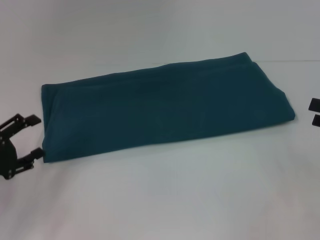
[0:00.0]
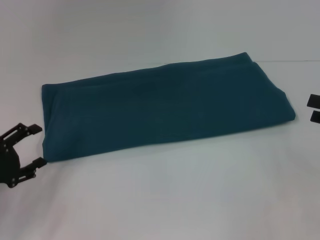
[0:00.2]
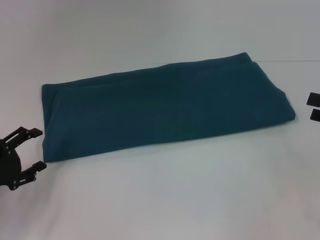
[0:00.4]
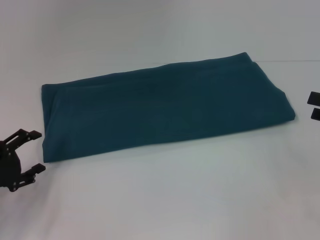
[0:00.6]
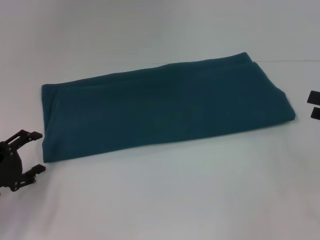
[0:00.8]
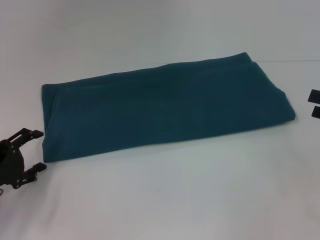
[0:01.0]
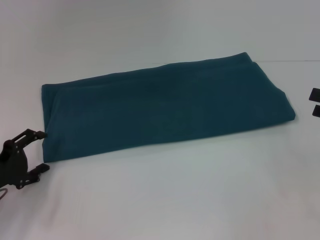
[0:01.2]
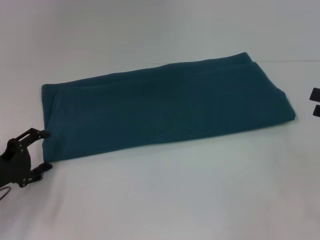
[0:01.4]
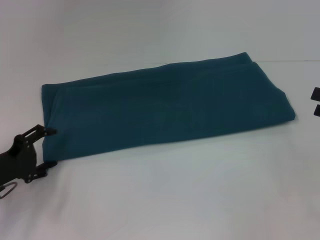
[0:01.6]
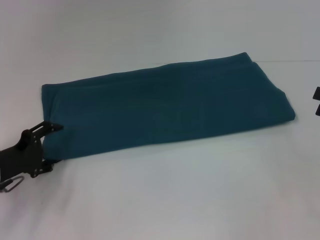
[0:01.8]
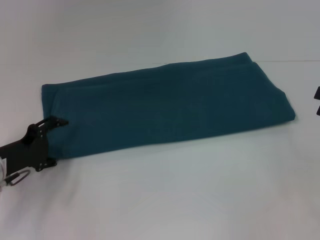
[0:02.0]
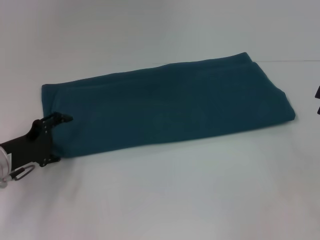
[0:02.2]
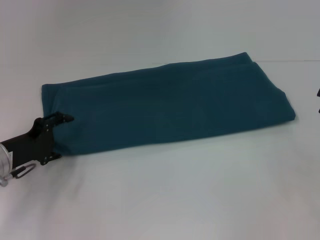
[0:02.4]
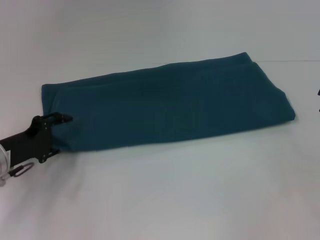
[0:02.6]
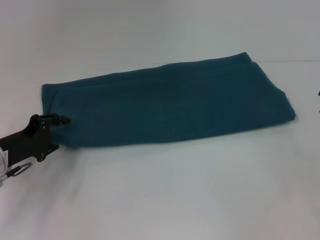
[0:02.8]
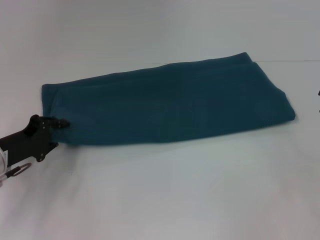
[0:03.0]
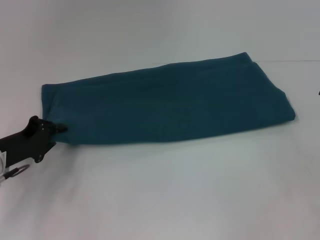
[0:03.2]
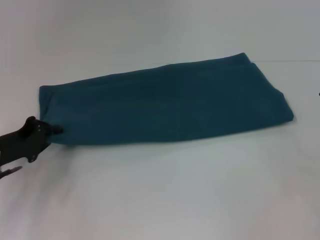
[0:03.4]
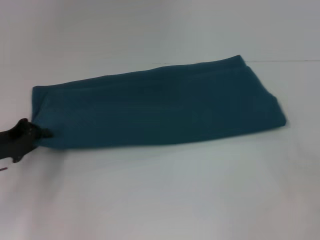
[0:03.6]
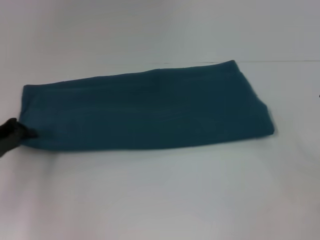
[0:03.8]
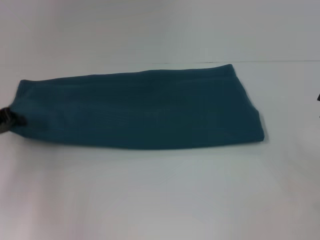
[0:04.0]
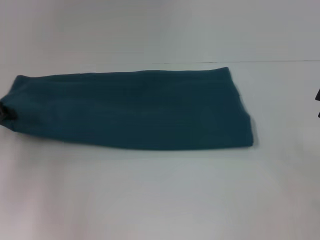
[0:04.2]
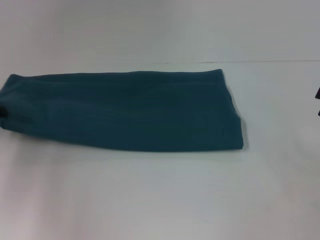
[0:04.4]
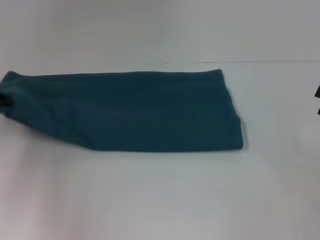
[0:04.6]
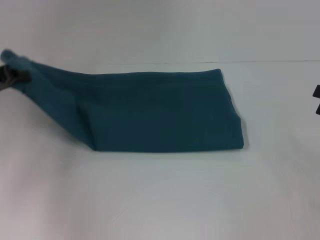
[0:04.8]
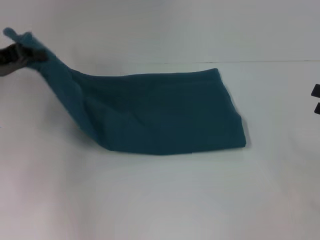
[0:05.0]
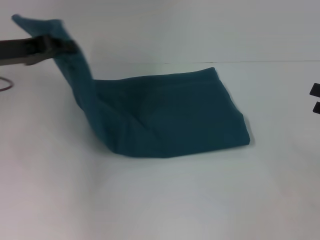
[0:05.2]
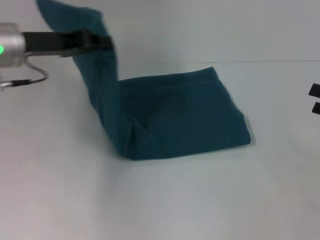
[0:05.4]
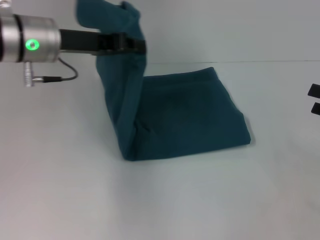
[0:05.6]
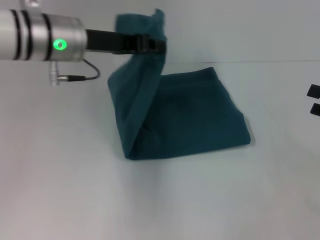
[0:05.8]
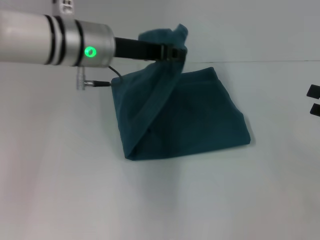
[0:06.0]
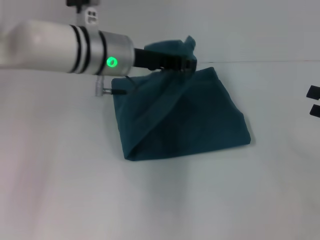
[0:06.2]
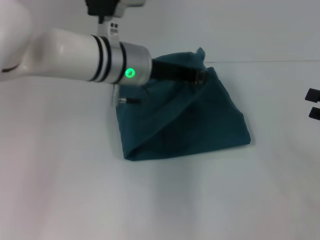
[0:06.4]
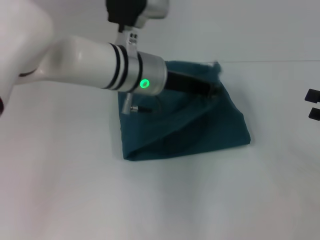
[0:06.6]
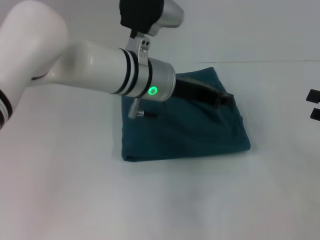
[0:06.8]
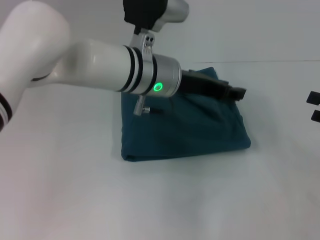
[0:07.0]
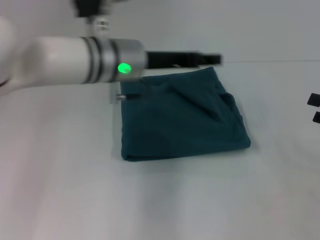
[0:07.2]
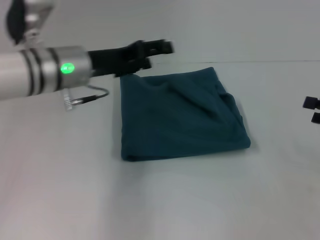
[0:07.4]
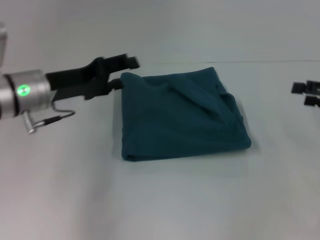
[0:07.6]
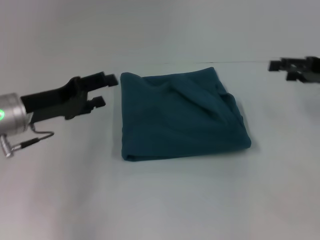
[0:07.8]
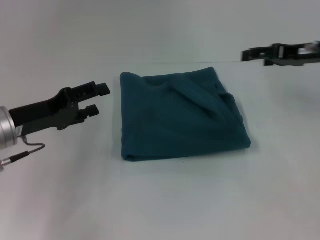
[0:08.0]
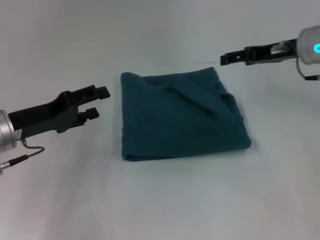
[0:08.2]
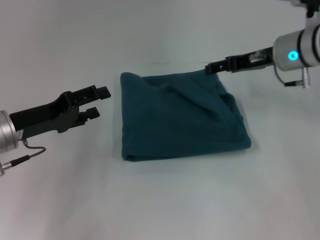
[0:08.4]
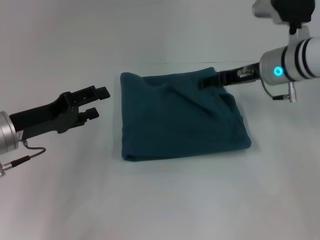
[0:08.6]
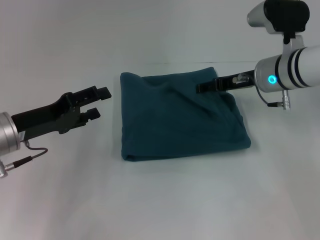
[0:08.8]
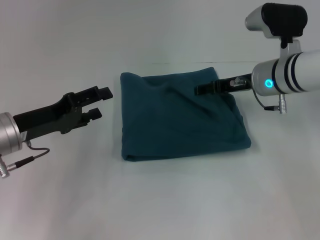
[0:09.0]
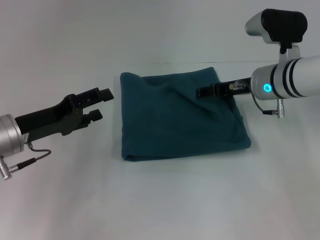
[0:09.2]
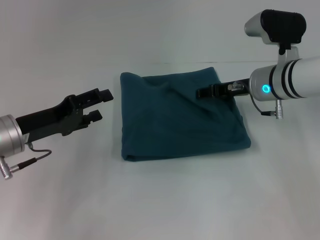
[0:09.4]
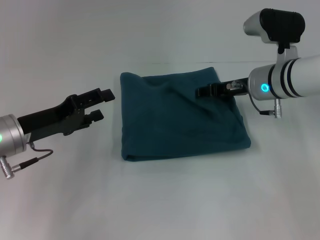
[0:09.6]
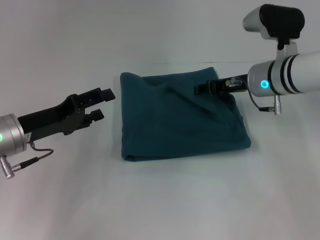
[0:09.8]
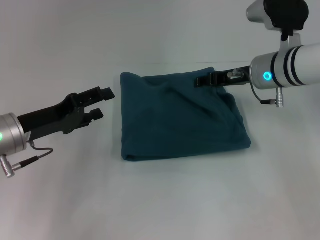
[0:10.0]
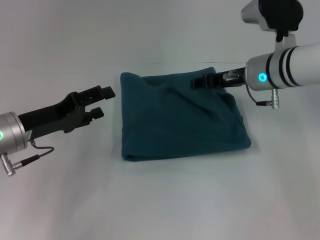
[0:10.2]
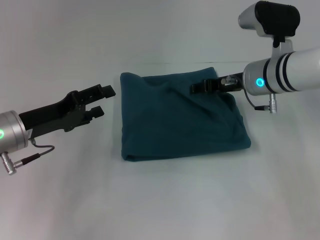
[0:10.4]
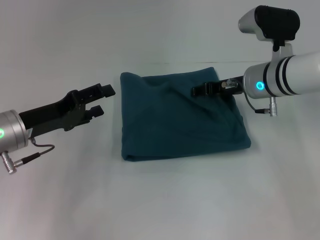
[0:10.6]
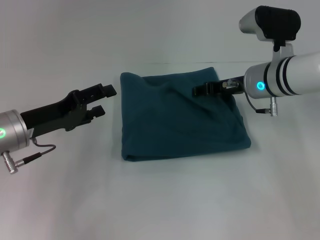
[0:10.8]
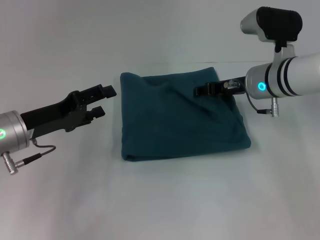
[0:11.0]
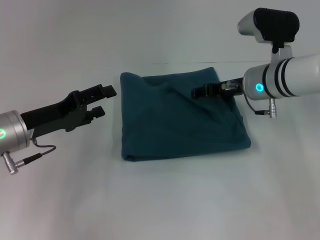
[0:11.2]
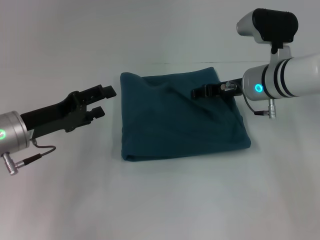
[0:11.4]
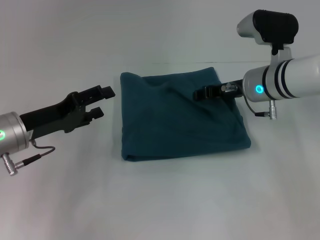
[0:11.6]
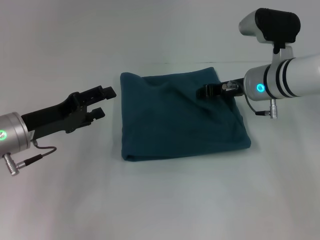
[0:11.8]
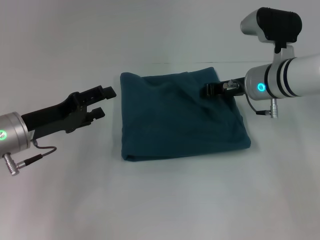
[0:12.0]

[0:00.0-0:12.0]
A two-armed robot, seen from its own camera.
Step, 0.0 to 6.8 s: Fold the clothes to the left.
0.0 to 1.6 s: The left gripper shifts by roughly 5 cm.
1.6 to 3.0 s: The left gripper closes up.
3.0 to 4.4 s: The left gripper goes roughly 10 cm to the left and upward, and closes.
4.4 to 6.0 s: The left gripper moves to the right, about 25 cm.
6.0 to 7.6 s: The left gripper moves to the left and downward, about 10 cm, and opens its fingers; the right gripper moves some 5 cm.
7.6 to 9.0 s: The right gripper moves to the left and forward, roughly 20 cm. Meanwhile the left gripper shifts about 5 cm backward.
9.0 to 10.4 s: The right gripper closes its fingers.
10.4 to 12.0 s: The right gripper closes up.

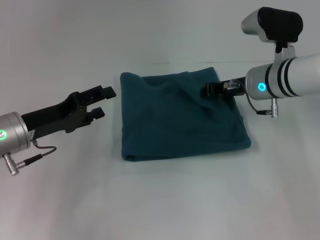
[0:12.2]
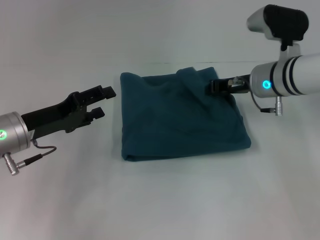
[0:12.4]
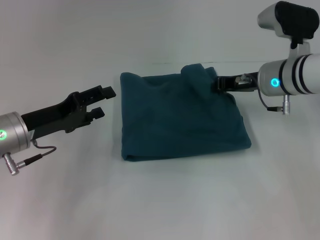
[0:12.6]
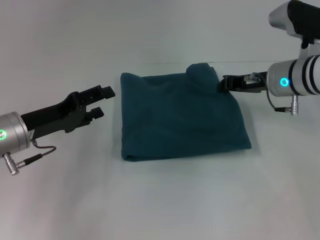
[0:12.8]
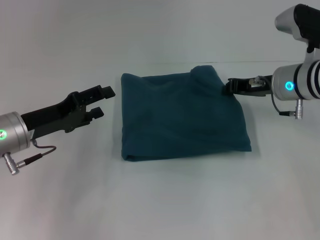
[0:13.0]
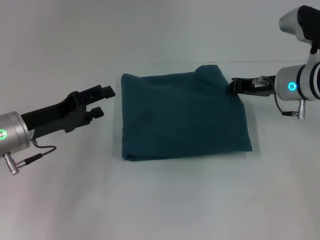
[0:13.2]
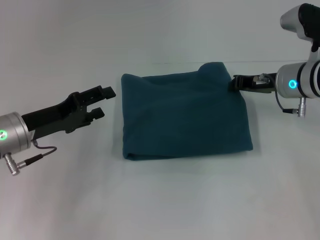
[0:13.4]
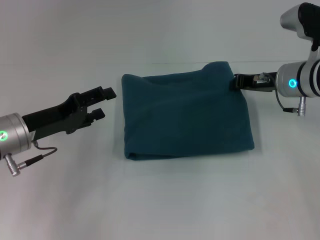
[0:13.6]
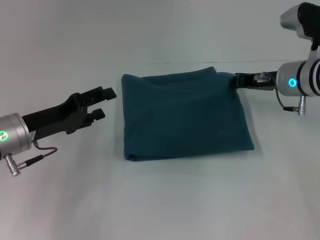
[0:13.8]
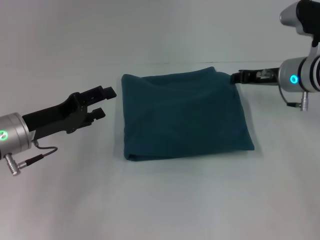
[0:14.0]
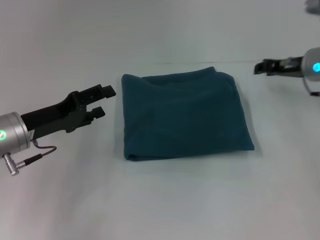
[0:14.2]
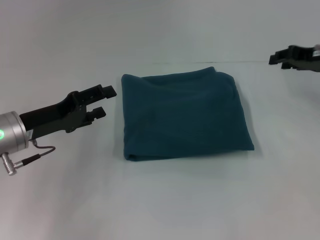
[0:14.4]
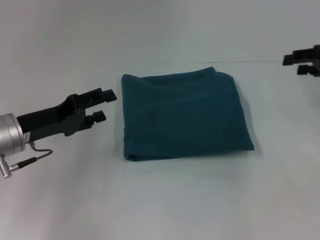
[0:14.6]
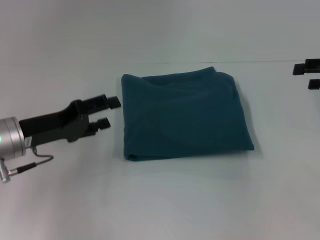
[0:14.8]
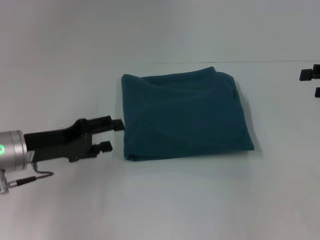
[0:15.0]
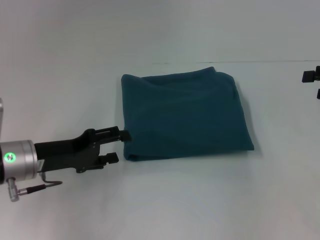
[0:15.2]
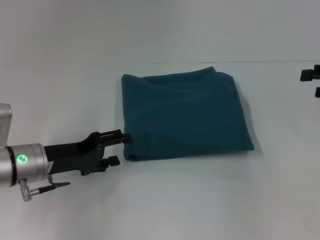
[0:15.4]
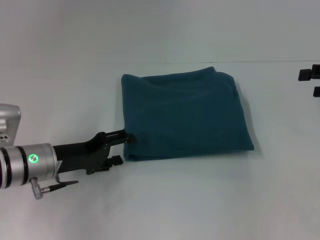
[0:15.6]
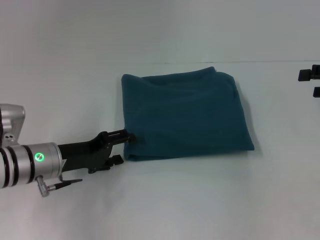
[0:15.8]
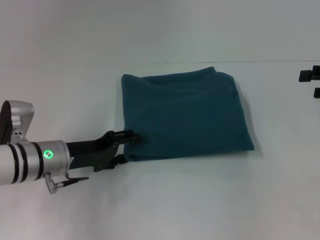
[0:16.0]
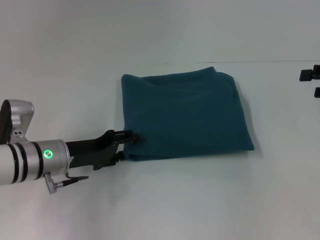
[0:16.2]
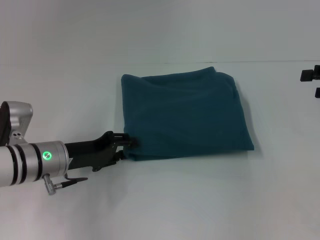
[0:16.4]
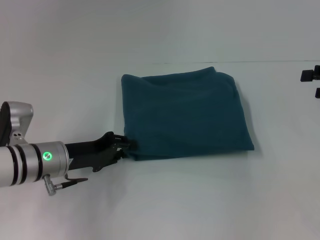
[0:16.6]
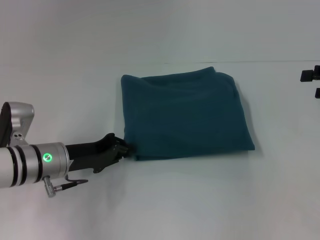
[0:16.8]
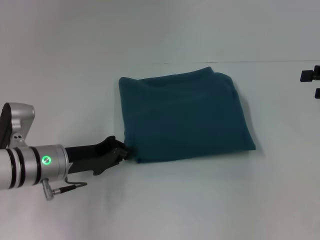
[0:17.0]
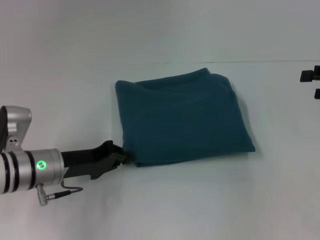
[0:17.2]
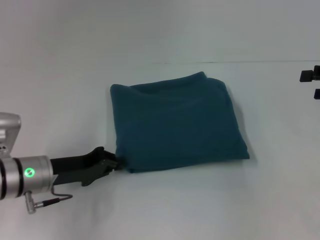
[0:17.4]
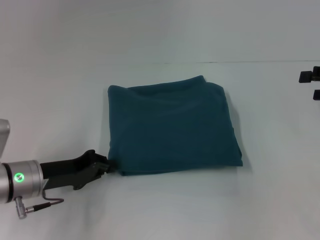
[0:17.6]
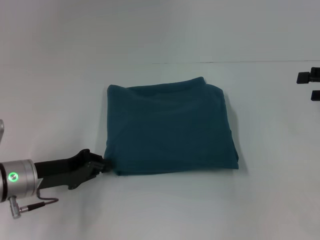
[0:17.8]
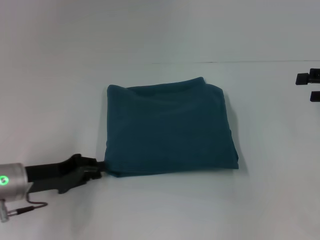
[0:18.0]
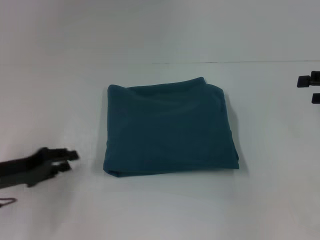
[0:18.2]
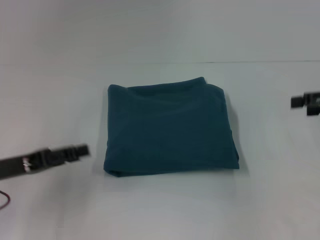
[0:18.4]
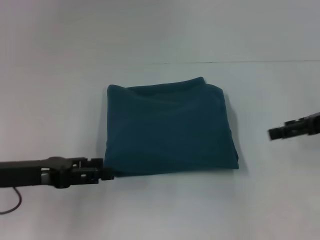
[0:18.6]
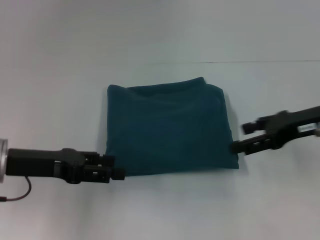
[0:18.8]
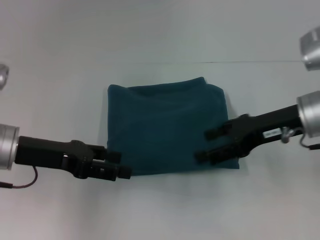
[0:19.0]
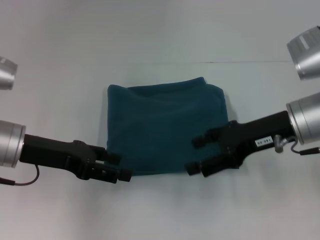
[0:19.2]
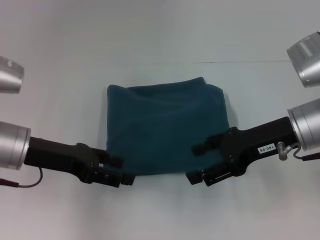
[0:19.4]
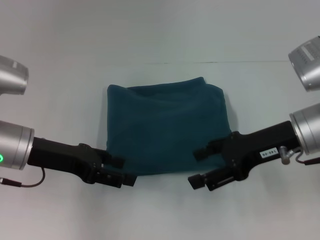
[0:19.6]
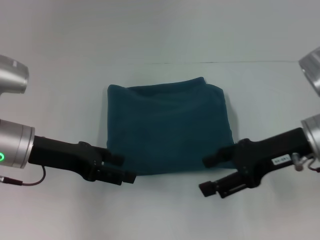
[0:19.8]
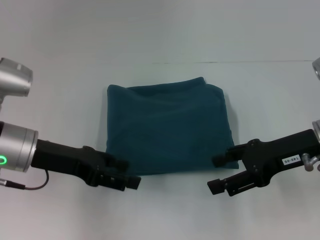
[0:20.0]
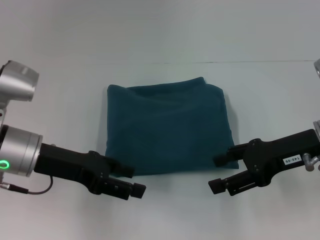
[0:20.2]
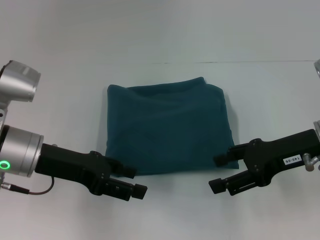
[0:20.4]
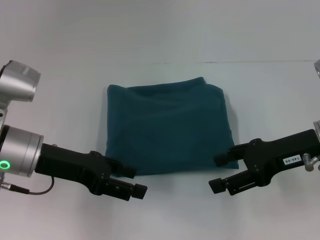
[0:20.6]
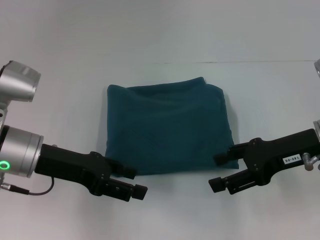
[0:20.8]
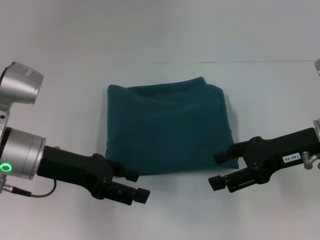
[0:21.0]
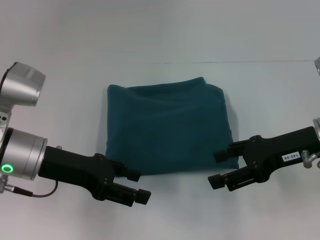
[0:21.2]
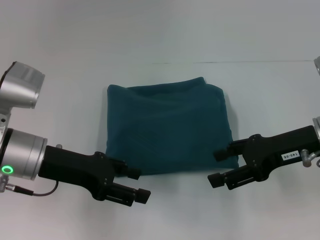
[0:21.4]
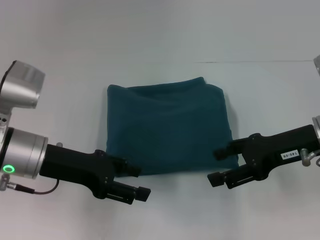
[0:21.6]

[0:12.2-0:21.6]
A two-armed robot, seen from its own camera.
12.2 to 13.8 s: There are only small adjustments of the grippers.
13.8 to 15.4 s: The right gripper heads to the right, covering some 15 cm, and opens its fingers.
15.4 to 17.0 s: The left gripper closes its fingers.
17.0 to 18.4 s: The left gripper travels to the left and backward by approximately 10 cm.
18.4 to 20.0 s: The left gripper is displaced to the right and forward by about 10 cm, and opens. The right gripper moves to the left, roughly 15 cm.
20.0 to 21.6 s: The grippers make only small movements.

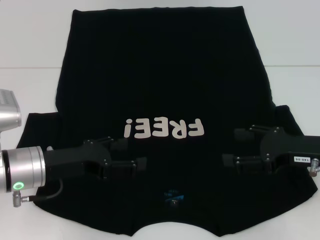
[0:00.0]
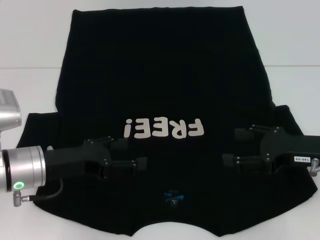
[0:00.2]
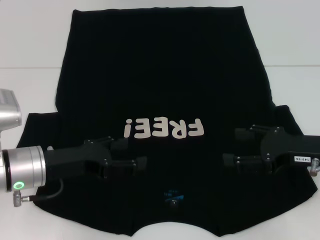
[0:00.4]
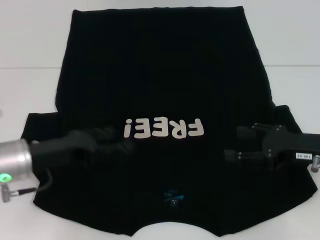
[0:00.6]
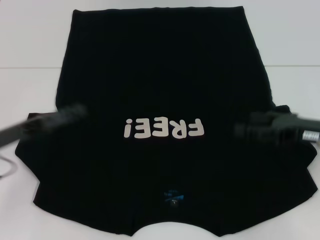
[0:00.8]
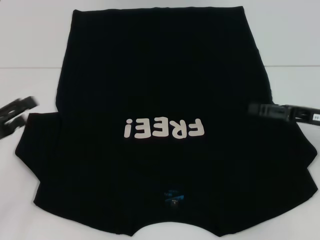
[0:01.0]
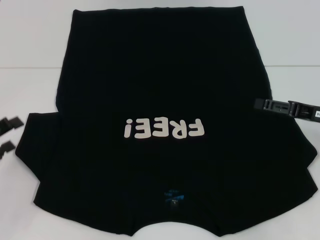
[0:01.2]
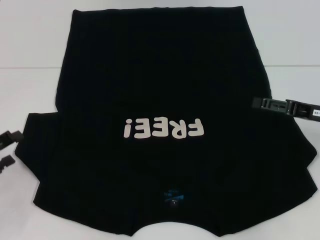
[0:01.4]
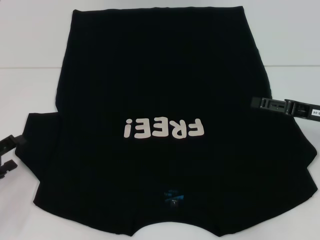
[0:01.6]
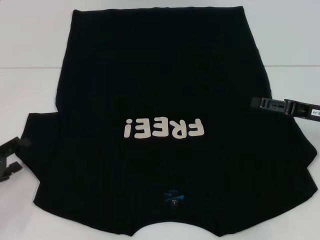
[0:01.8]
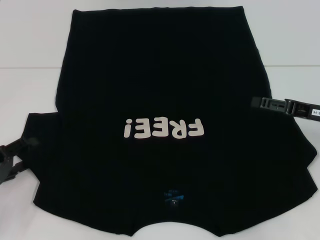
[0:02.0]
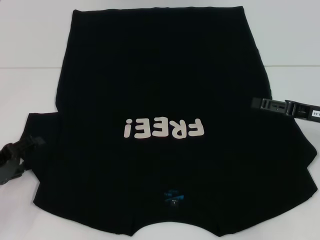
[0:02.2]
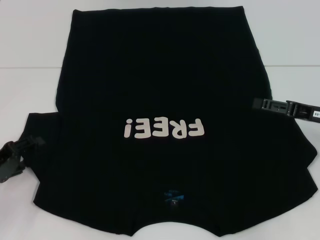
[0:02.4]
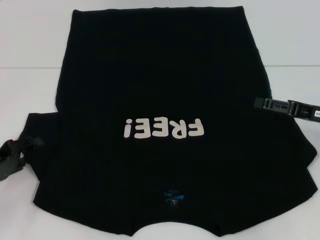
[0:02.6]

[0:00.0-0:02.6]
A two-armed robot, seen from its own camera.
0.0 to 1.2 s: The left gripper shifts about 15 cm to the left. The right gripper changes place by roughly 5 cm.
1.2 to 2.6 s: The grippers stay close to where they were, moving slightly.
